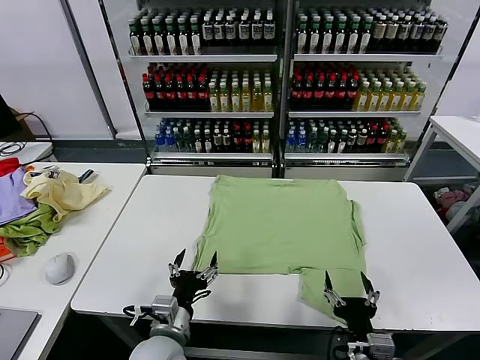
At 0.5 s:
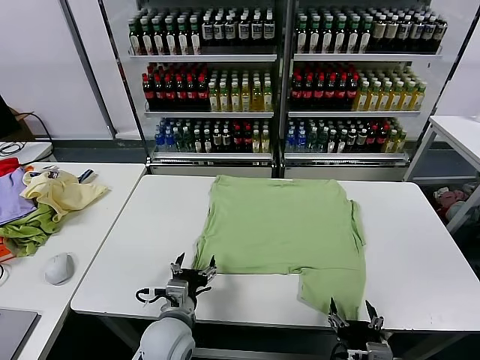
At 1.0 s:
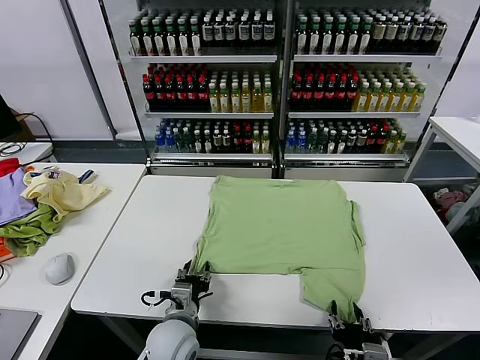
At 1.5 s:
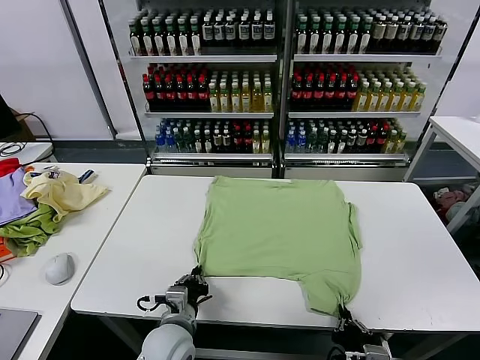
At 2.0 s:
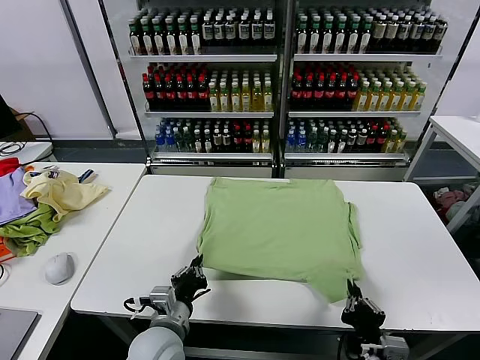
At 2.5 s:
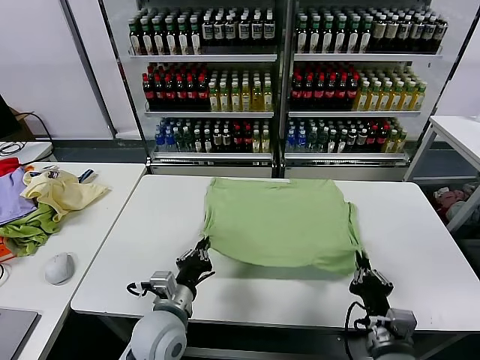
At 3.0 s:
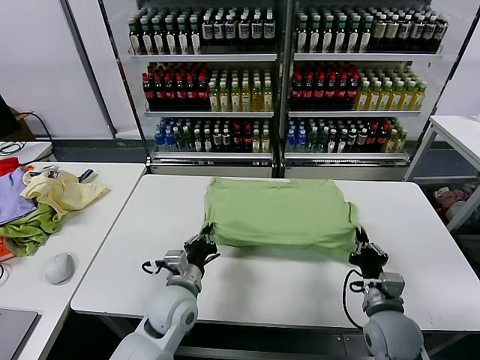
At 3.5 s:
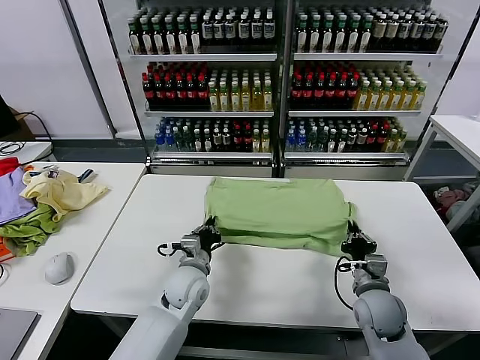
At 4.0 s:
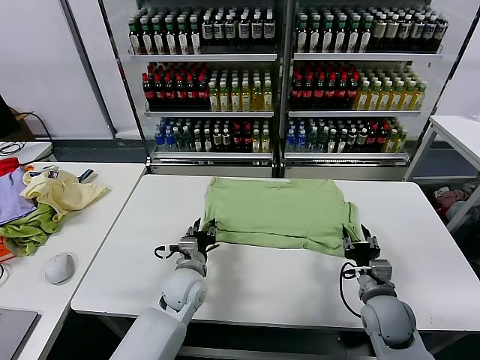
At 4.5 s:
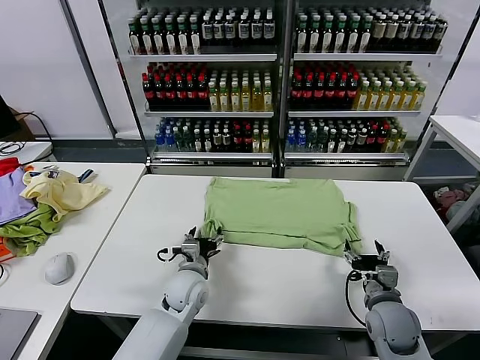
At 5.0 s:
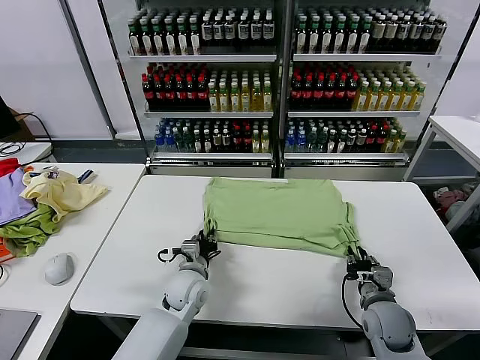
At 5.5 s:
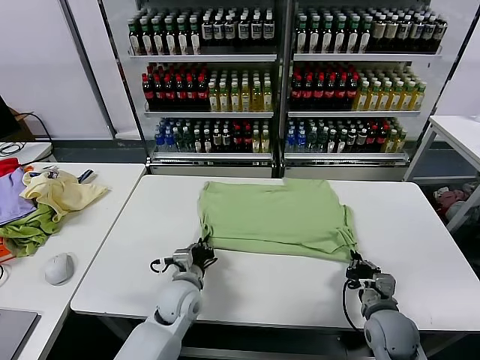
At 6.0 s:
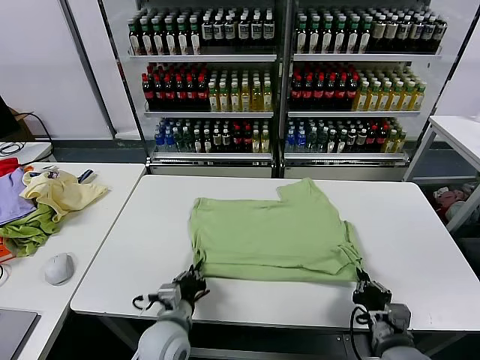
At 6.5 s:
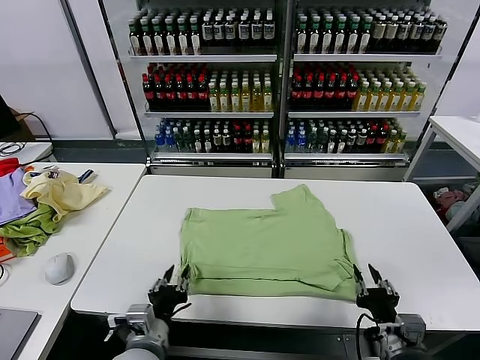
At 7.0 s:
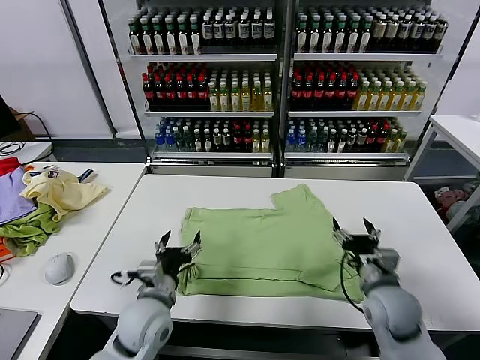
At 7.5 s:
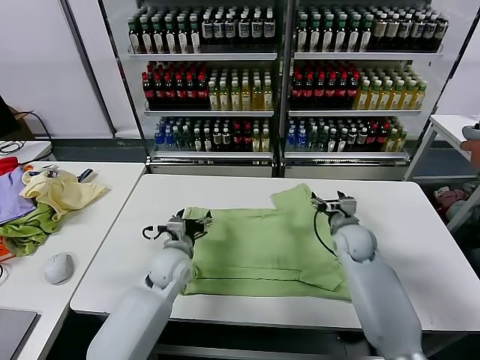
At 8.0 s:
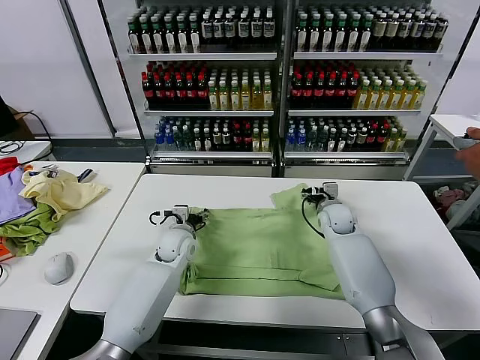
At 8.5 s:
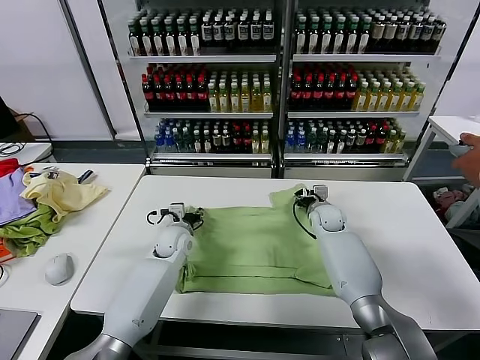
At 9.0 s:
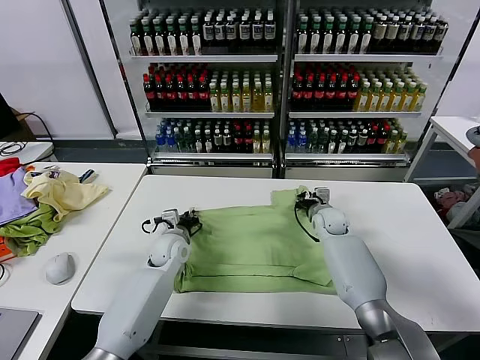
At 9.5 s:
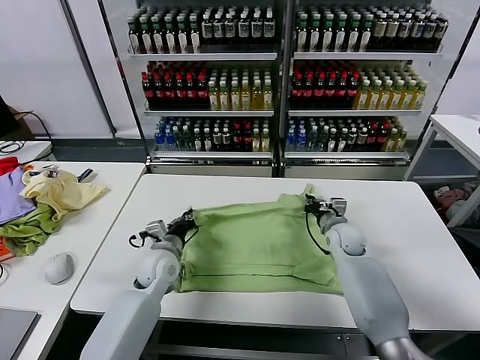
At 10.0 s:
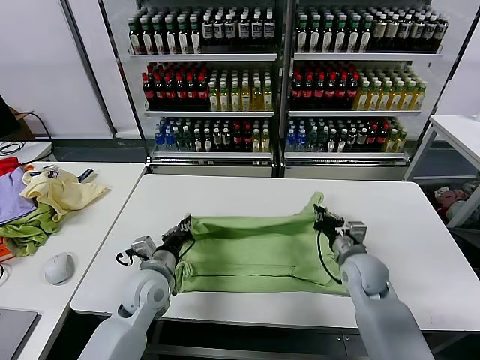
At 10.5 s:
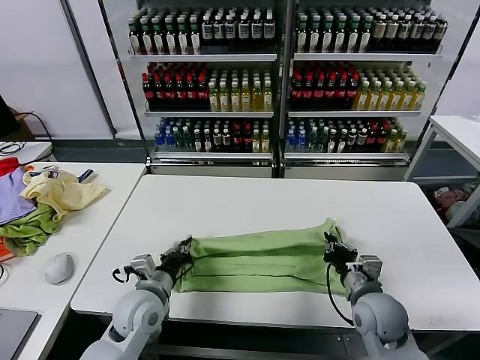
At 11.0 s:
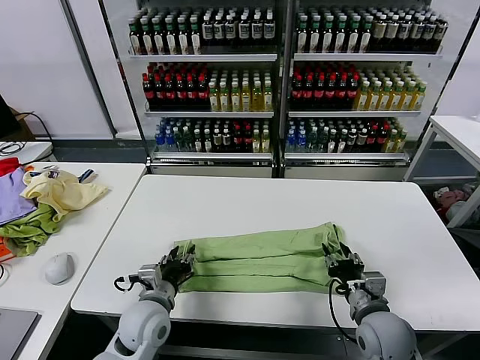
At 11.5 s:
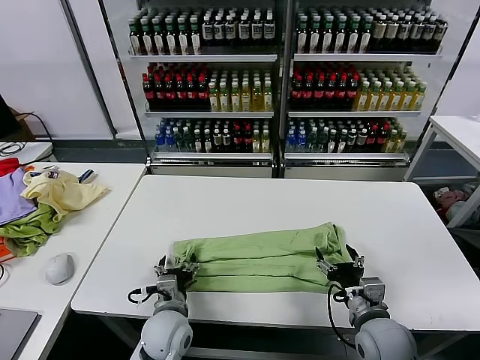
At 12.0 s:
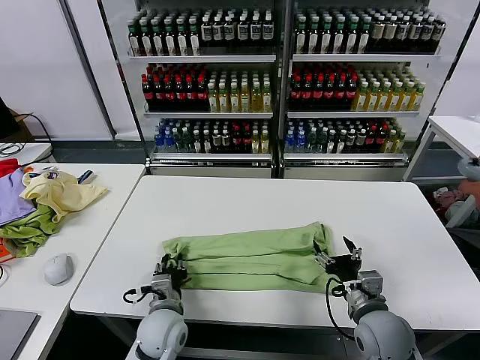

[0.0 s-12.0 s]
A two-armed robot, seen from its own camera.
Task of the whole recording: fold and organize the clothes.
Step, 0.0 to 1.5 s: use both grippers simultaneously to clamp the lower edge of the clothing fabric.
Step, 2.0 to 3.5 s: use both grippers to drag the lower edge of the fabric forward and fold it over the upper edge.
Step, 4.0 to 6.0 s: Drag the clothes downward with both gripper.
Step, 6.5 to 9.0 s: use both grippers simultaneously to clamp the upper edge of the clothing fabric.
Step, 9.5 to 10.5 s: use both grippers to drag the upper edge of the fabric backward and fold it over the lower edge.
2.0 to 4.0 s: Both grippers move forward, about 15 cm. The right gripper opens. The left gripper opens.
4.0 to 6.0 s: Both grippers move backward, roughly 10 cm. The right gripper closes its fingers, while the left gripper closes its fingers.
6.0 to 8.0 s: The right gripper moves forward, some 40 cm, and opens its fingers. Meanwhile the left gripper shifts approximately 25 cm forward, and opens up.
8.0 to 10.0 s: Both grippers travel together backward, about 15 cm. The right gripper closes its fingers, while the left gripper closes up.
10.0 to 12.0 s: The right gripper heads backward, covering some 10 cm, and opens up; the left gripper moves backward and downward, roughly 10 cm, and opens its fingers.

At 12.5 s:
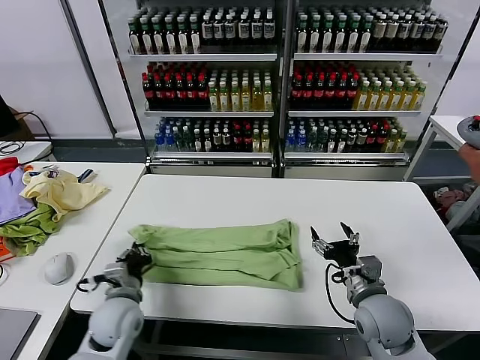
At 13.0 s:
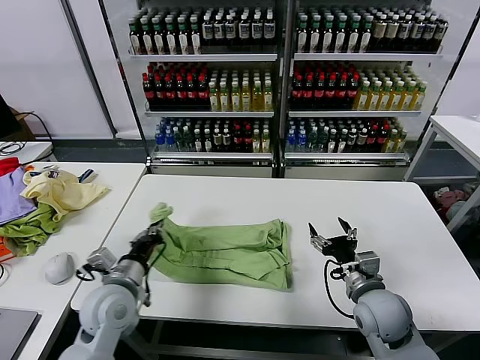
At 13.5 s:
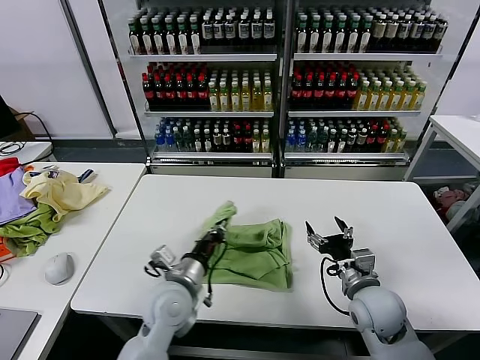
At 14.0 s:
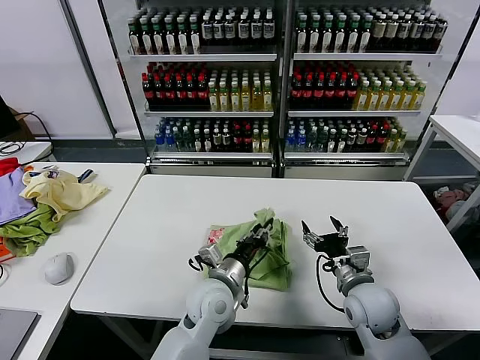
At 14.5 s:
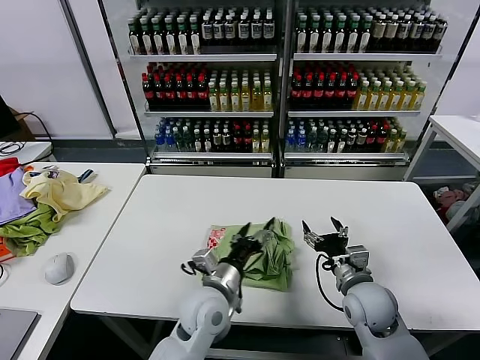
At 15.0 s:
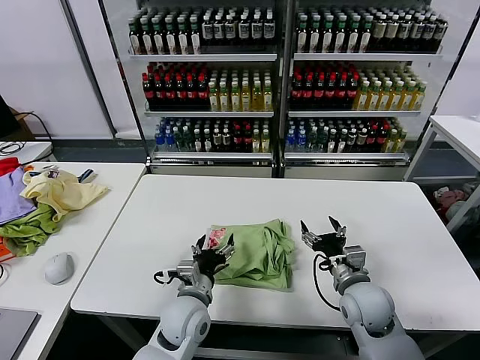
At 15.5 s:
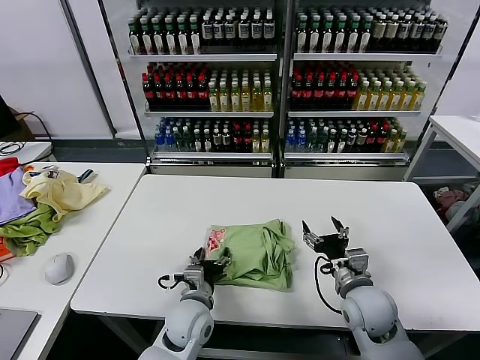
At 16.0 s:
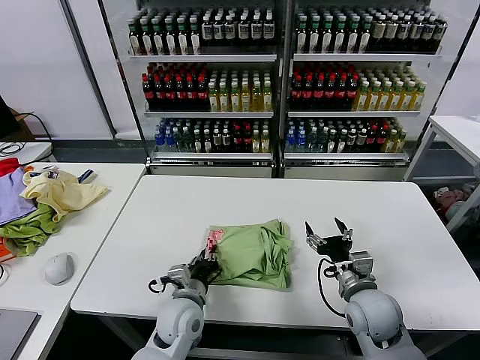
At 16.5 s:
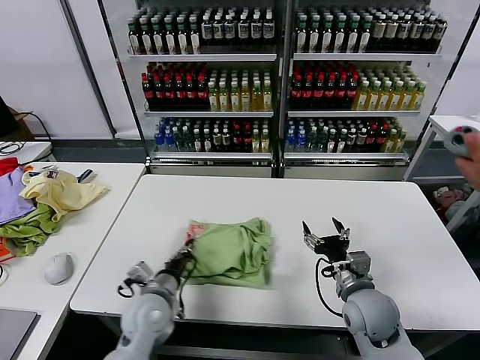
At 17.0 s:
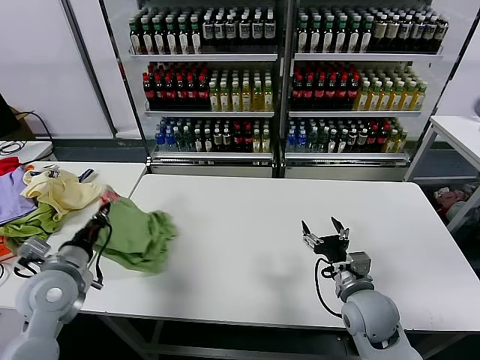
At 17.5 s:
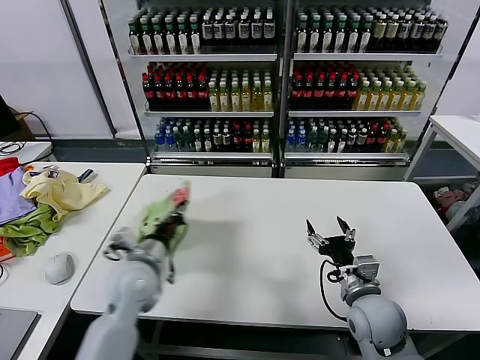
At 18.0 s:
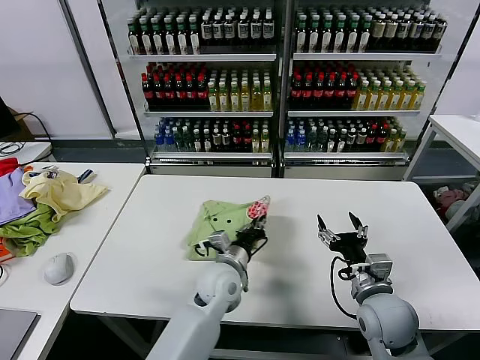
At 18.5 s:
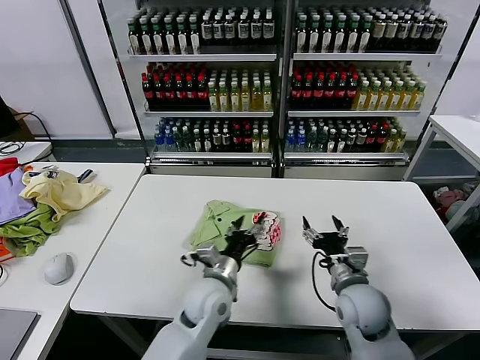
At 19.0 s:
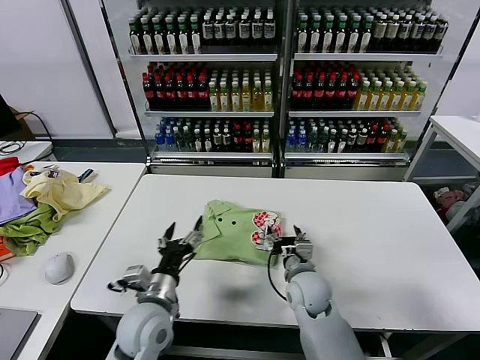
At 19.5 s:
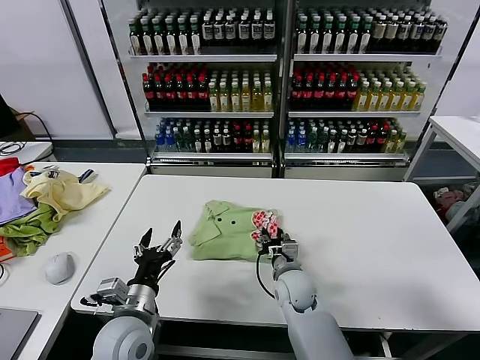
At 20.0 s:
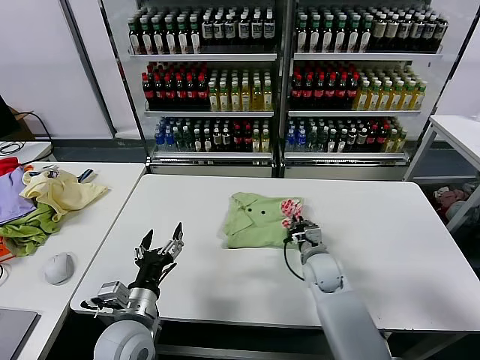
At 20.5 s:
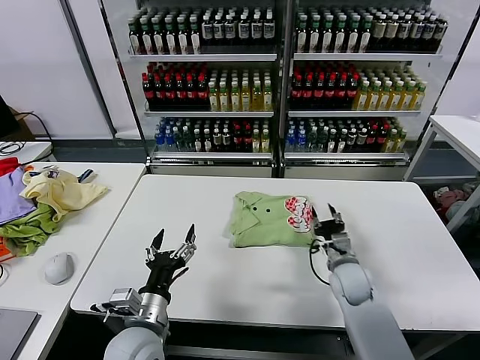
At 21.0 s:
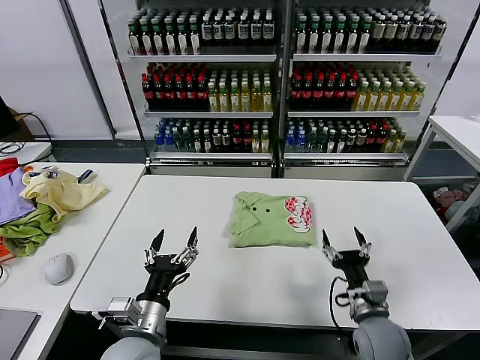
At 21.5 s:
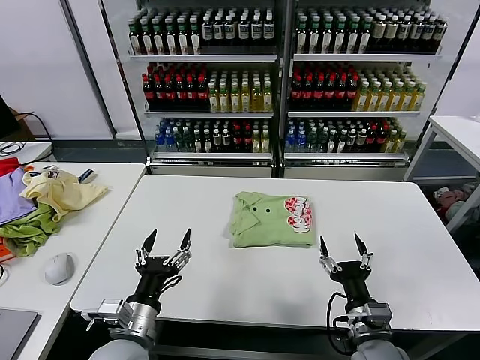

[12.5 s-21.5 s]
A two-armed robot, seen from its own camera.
Task of the whole recording: fold and organize the clothes.
Step, 12.5 to 14.0 s: use the left gripper to drag the left edge of the fabric to the left and folds it over the right edge.
Step, 14.5 to 18.0 s: Flip the folded clothes over with left gripper.
Step, 18.5 to 20.0 s: Drag the clothes to the center of the table.
12.5 to 14.5 s: The left gripper moves to the right, some 20 cm, and opens its fingers.
14.5 to 17.0 s: The left gripper is displaced to the left by some 30 cm, and closes.
17.0 to 19.5 s: The left gripper heads to the right, backward and downward, covering roughly 15 cm, and opens. Meanwhile the right gripper travels to the left, forward and downward by about 15 cm, and closes.
19.5 to 21.5 s: The left gripper shifts by roughly 5 cm. Meanwhile the right gripper moves backward and to the right, approximately 20 cm, and opens up.
